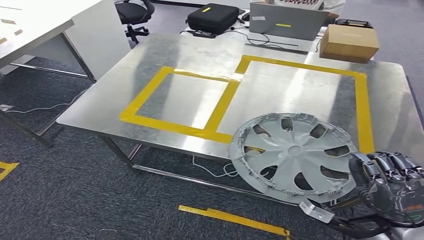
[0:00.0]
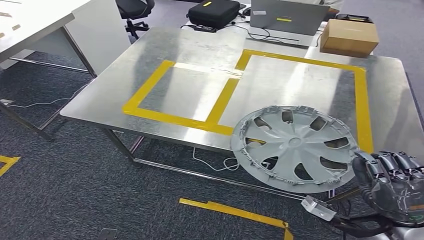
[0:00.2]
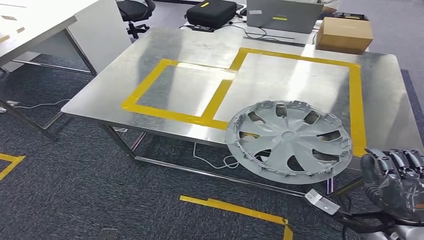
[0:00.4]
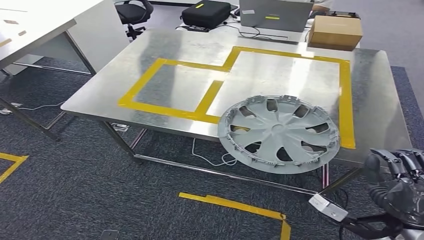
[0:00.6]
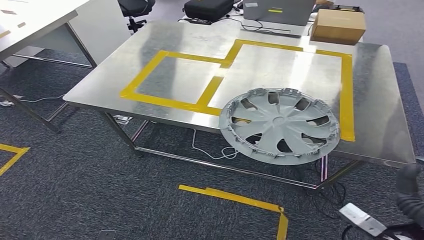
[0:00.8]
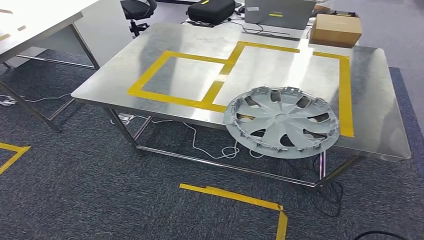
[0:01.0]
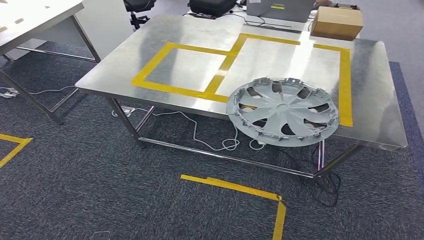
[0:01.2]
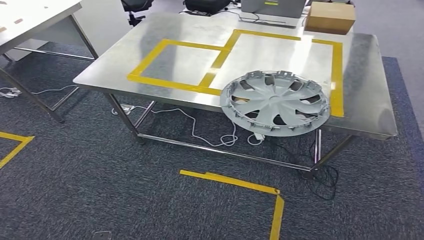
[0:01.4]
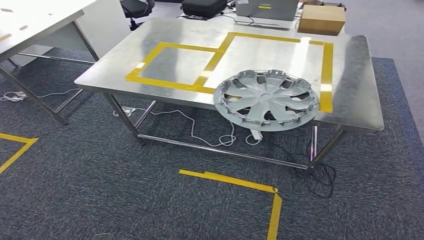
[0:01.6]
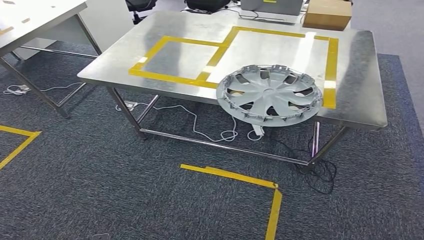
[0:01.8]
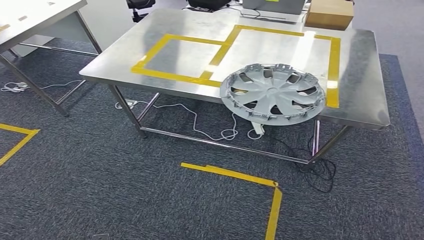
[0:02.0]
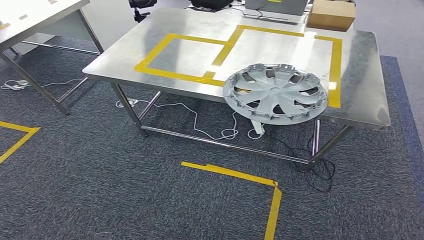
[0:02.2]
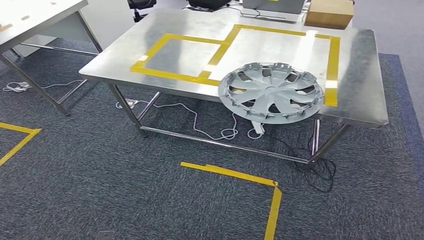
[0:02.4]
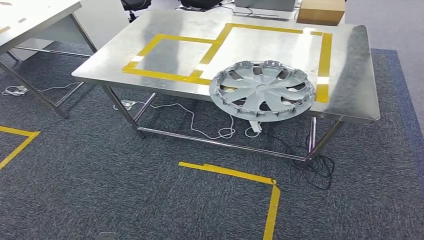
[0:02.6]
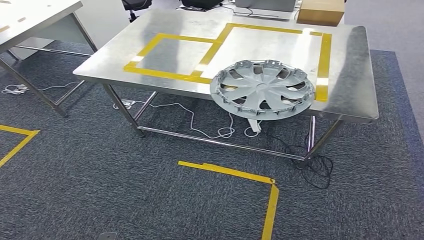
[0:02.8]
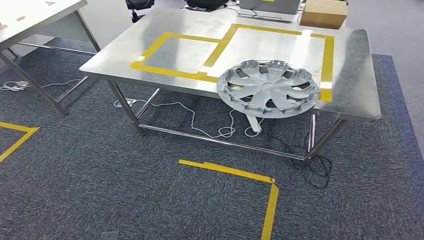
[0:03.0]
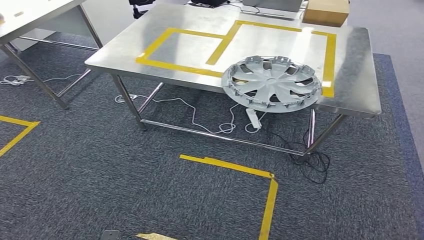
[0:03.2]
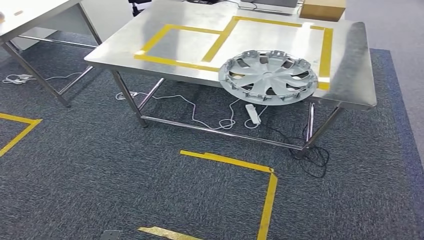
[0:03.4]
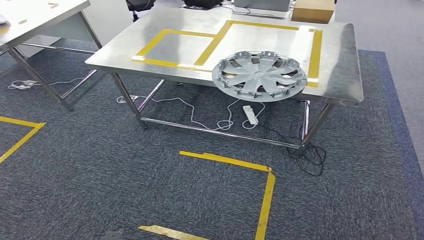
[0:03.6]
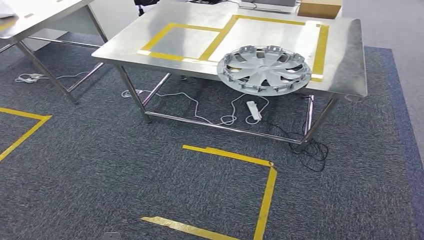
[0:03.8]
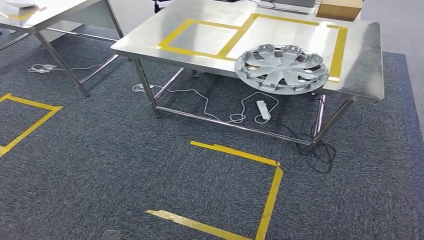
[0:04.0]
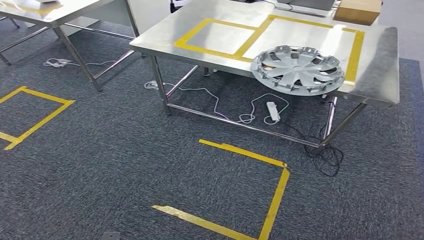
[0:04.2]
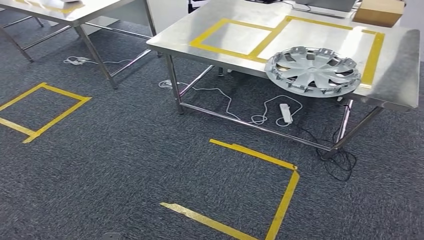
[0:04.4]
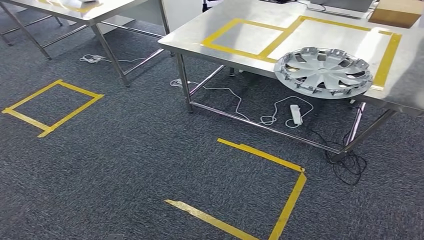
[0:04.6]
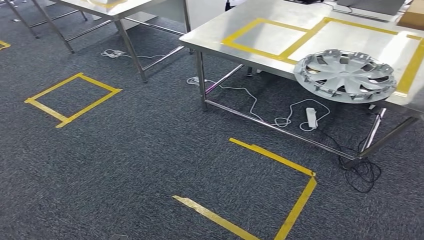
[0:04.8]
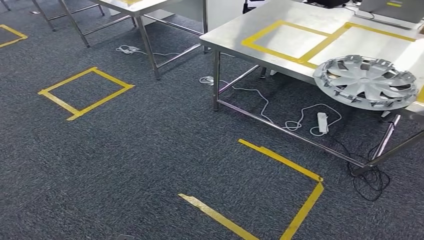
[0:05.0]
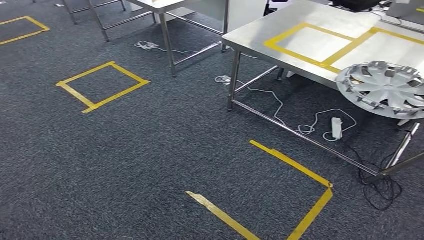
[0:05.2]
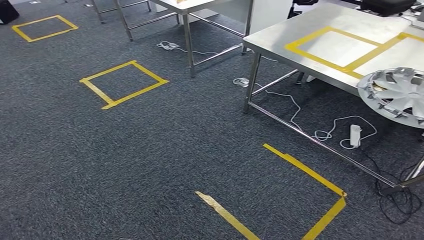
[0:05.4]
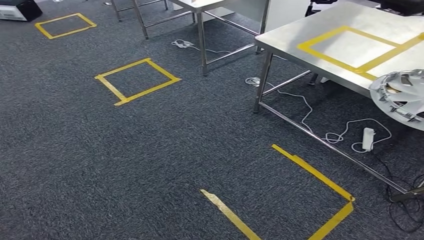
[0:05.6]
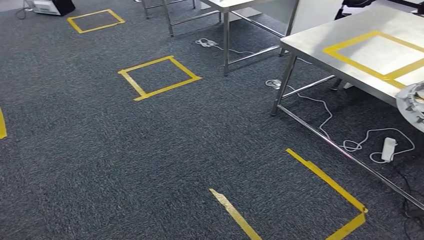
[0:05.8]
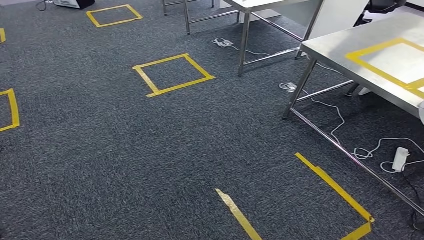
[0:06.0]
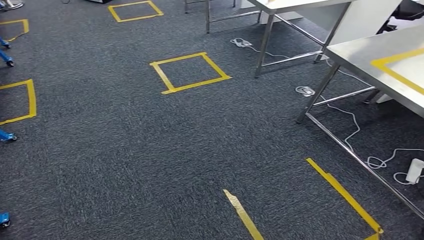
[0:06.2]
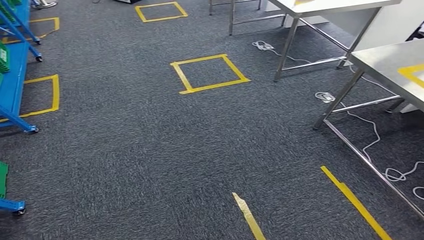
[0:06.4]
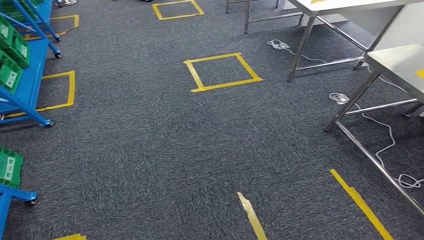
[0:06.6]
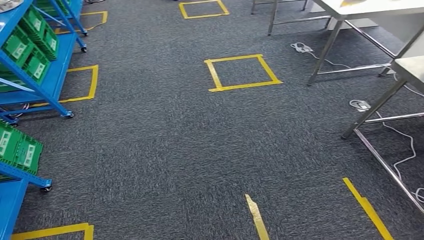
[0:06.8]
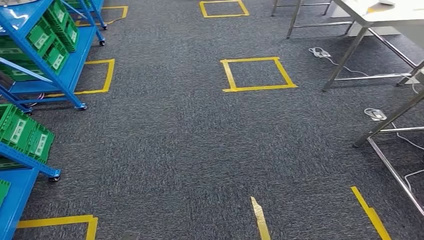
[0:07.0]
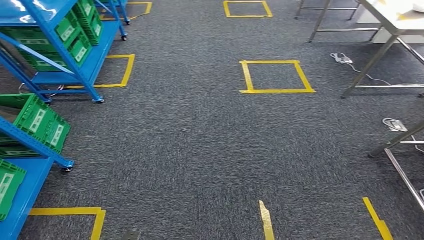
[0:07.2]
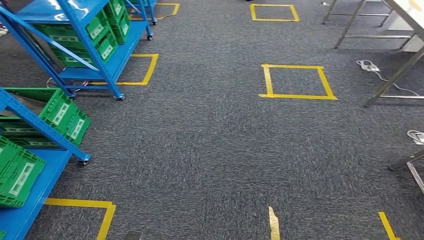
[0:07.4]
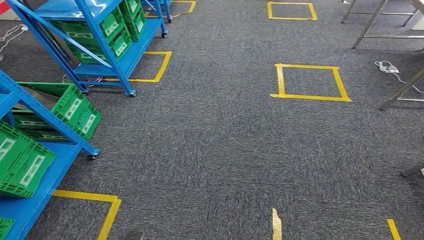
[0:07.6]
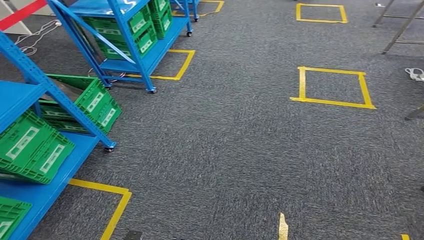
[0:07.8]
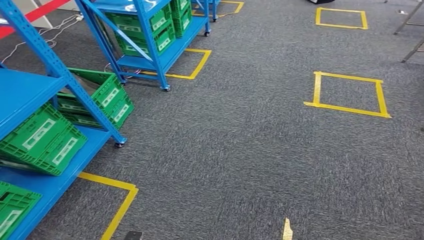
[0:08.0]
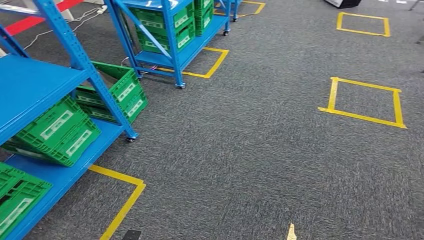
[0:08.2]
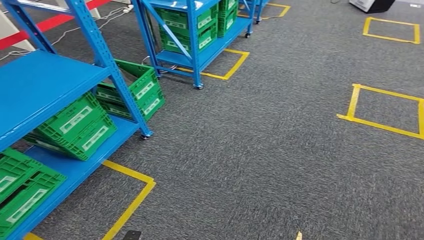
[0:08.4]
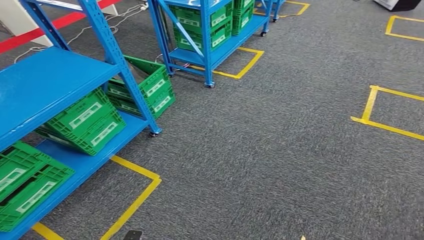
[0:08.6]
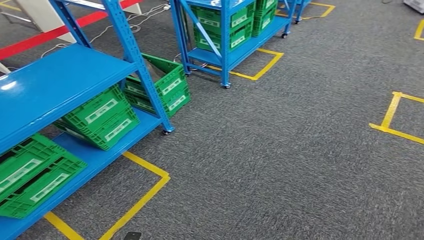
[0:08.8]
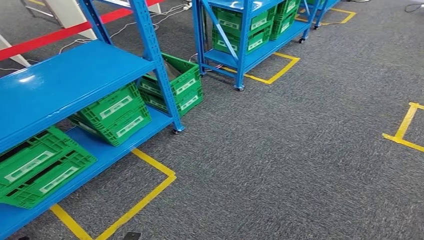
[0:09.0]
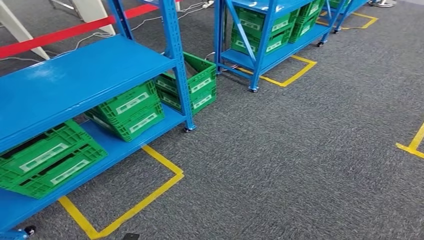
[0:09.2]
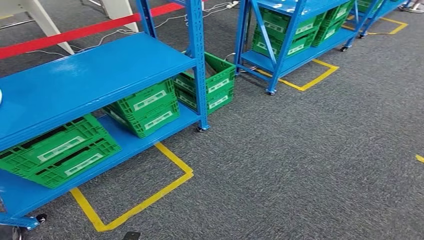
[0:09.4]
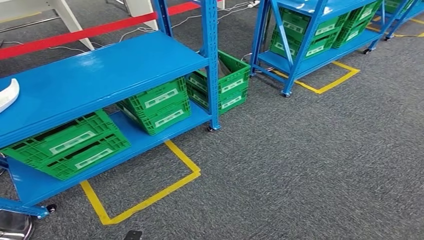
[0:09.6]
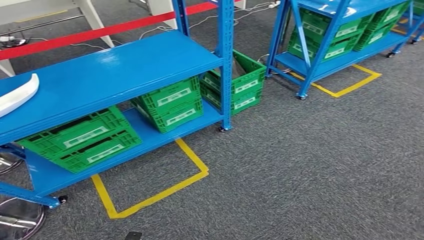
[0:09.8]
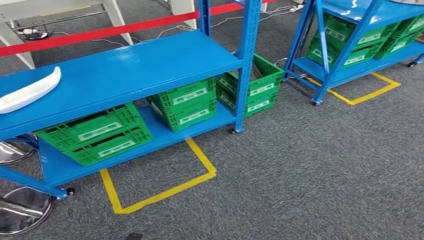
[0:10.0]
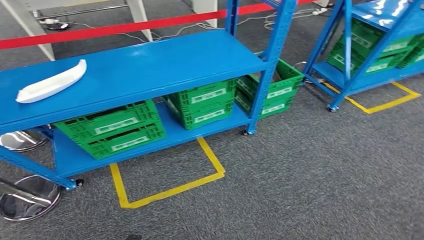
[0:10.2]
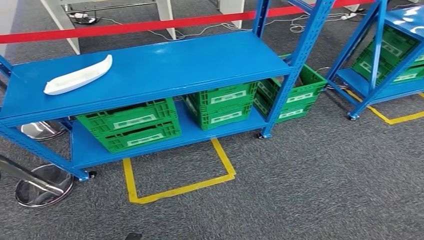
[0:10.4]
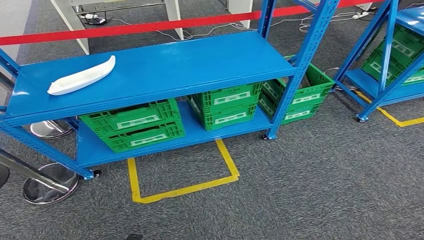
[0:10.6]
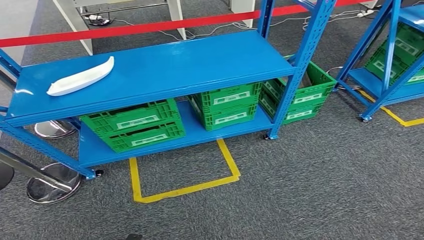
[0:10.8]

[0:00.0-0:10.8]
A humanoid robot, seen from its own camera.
Step, 0:00.0 to 0:02.6: Insert the small component into the corresponding slot on the workbench.

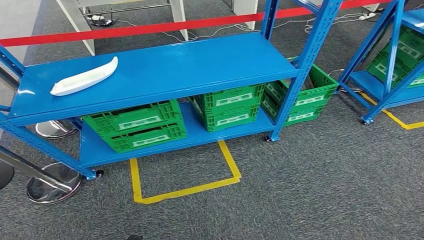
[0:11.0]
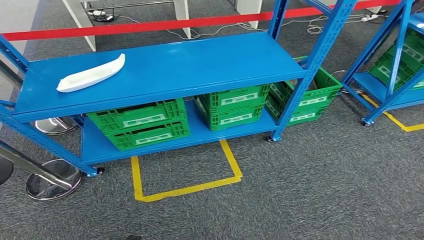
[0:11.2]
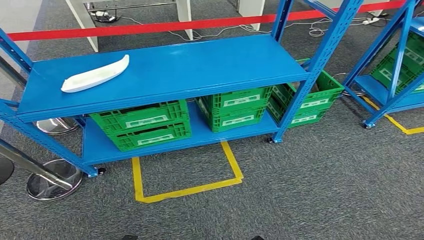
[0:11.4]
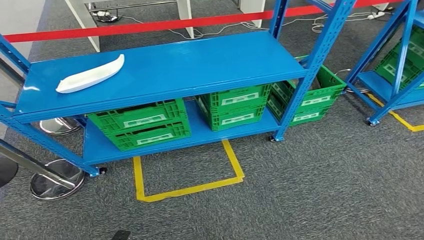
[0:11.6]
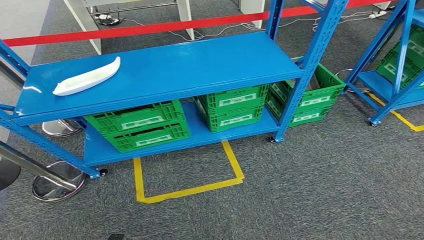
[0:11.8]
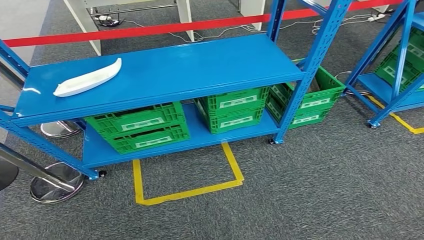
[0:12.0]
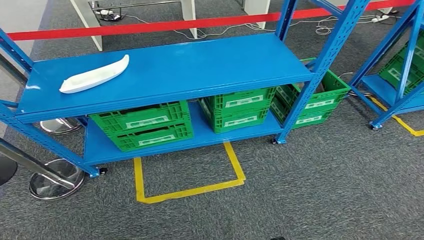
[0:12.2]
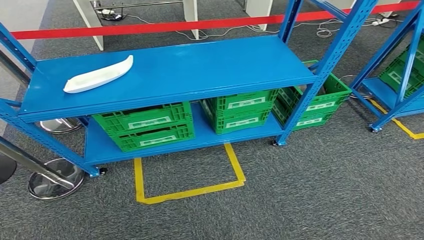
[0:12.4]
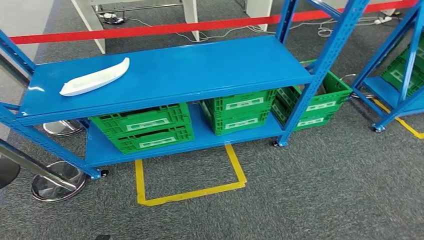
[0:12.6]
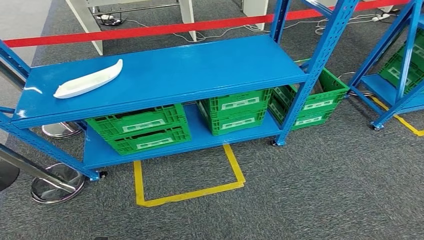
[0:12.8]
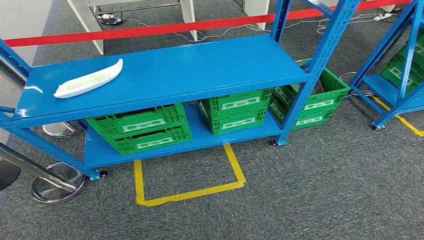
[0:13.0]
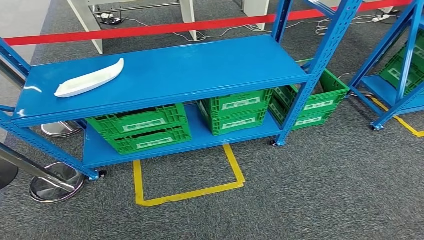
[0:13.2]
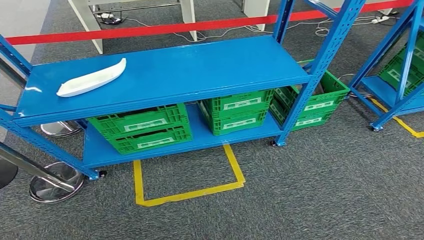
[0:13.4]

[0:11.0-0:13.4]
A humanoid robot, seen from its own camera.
Step, 0:11.0 to 0:13.4: Return to the initial position at the workbench.
0:12.2 to 0:13.4: The right hand moves backward, roughly 5 cm.
